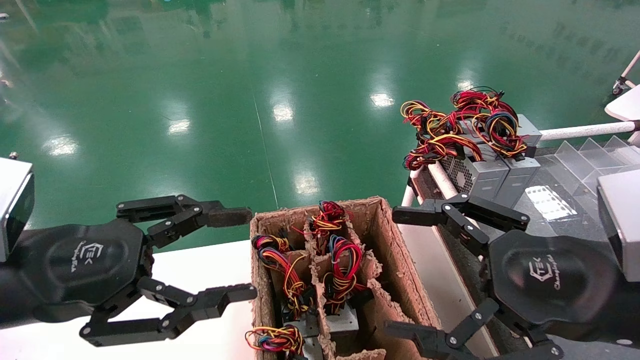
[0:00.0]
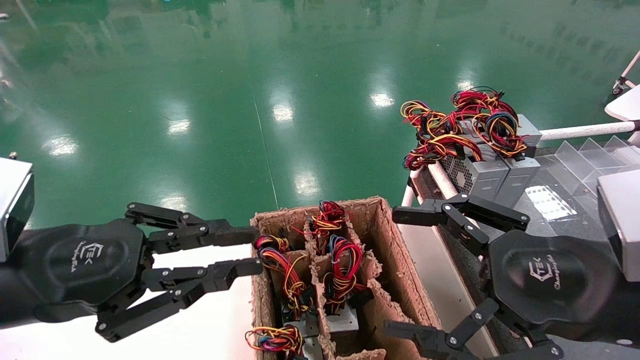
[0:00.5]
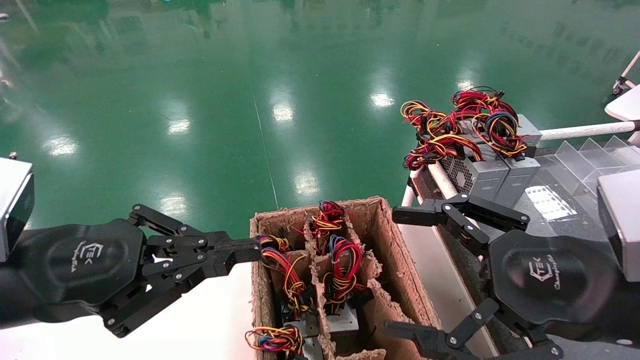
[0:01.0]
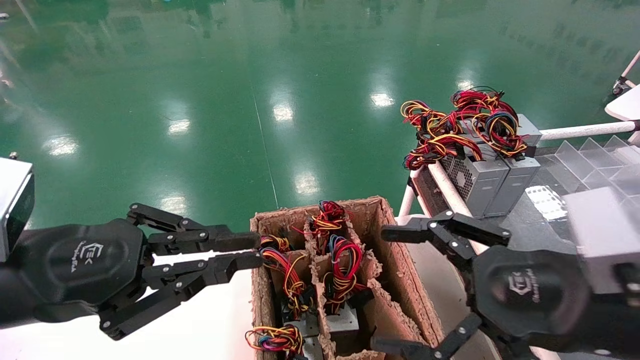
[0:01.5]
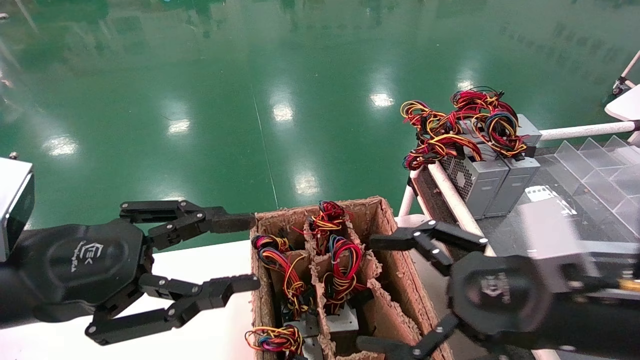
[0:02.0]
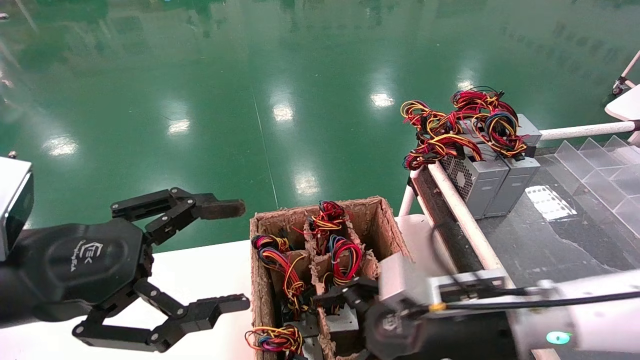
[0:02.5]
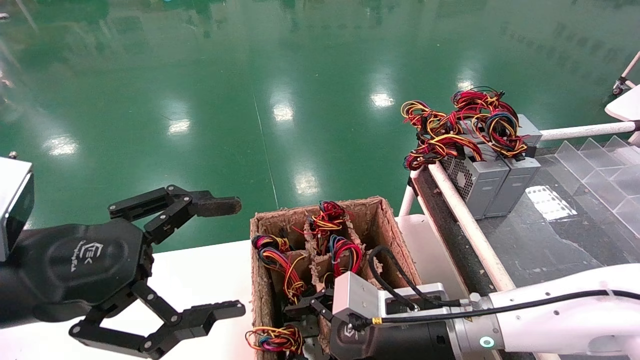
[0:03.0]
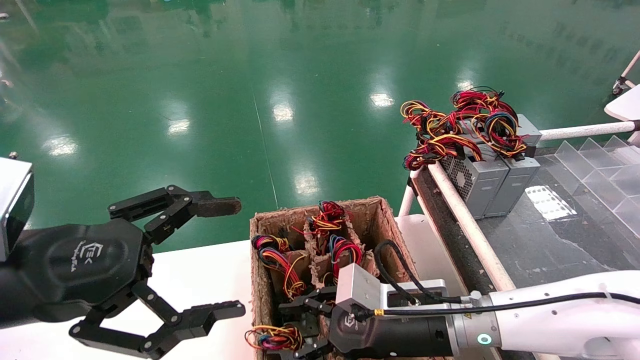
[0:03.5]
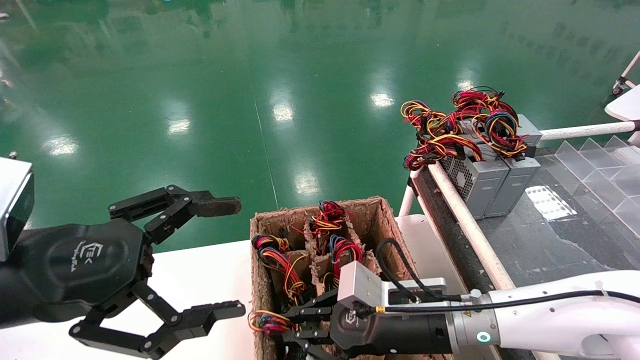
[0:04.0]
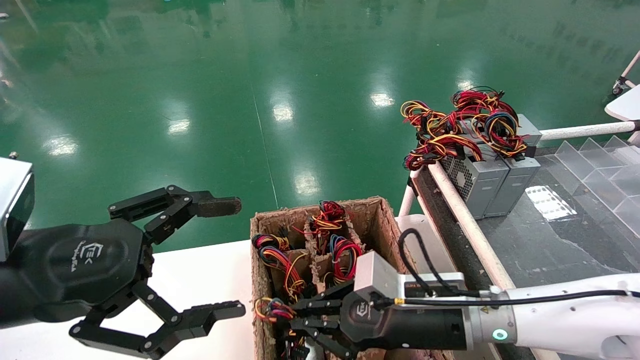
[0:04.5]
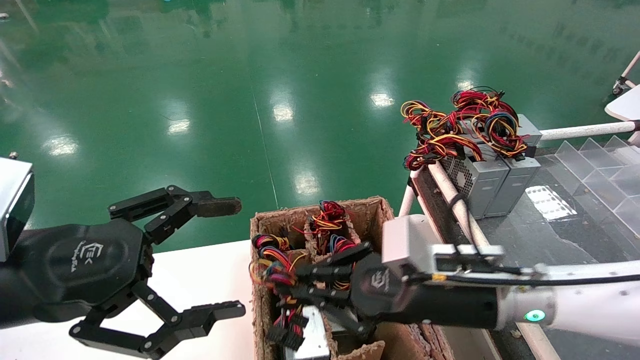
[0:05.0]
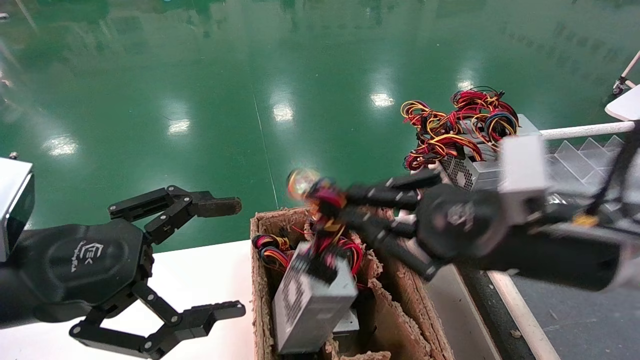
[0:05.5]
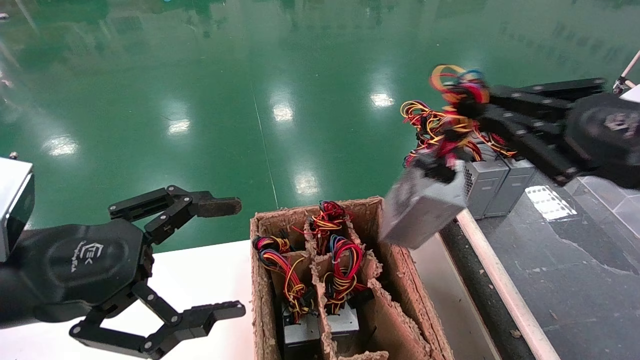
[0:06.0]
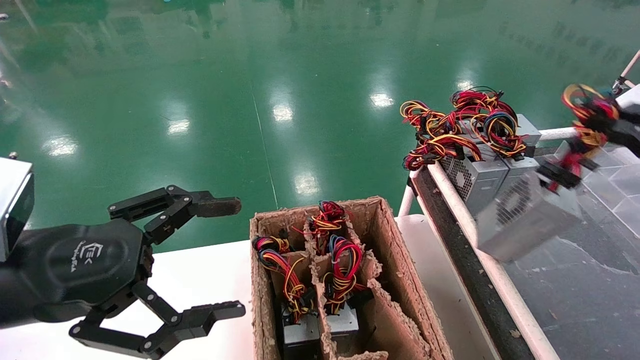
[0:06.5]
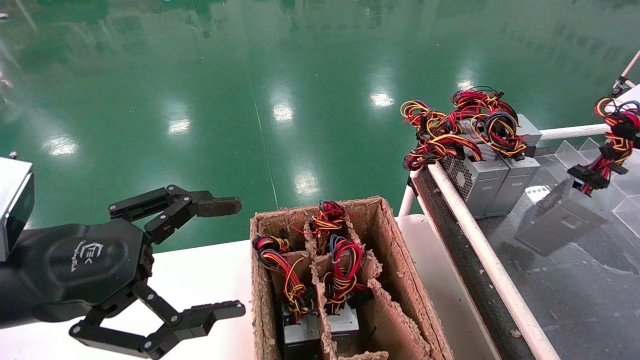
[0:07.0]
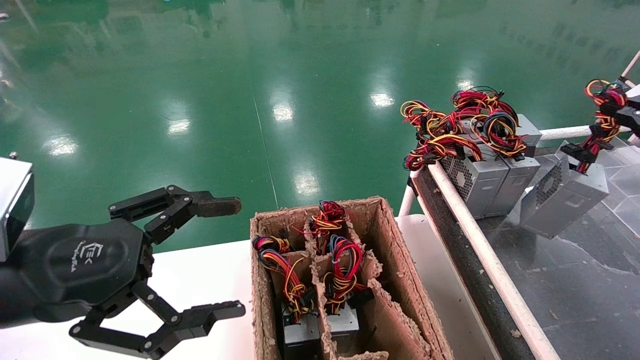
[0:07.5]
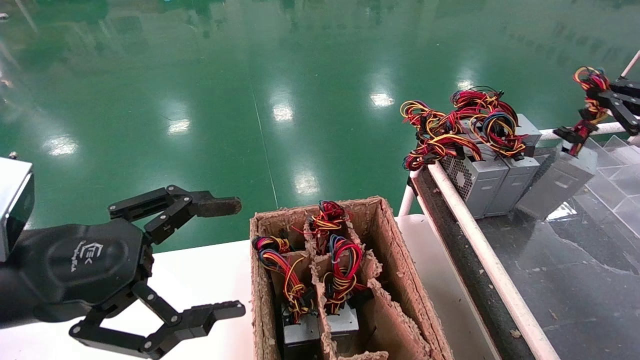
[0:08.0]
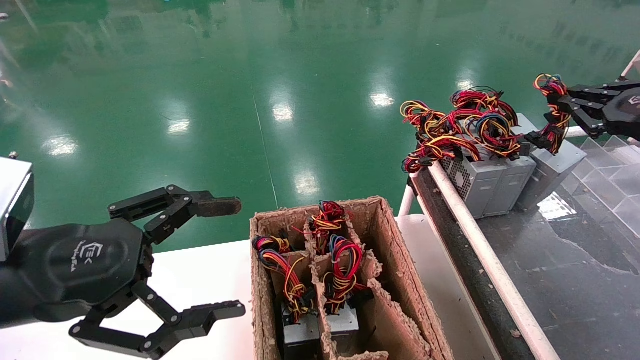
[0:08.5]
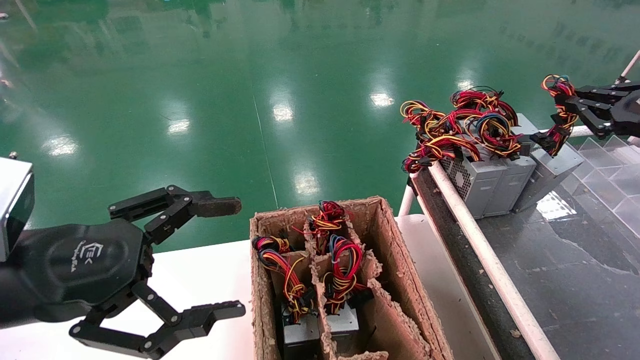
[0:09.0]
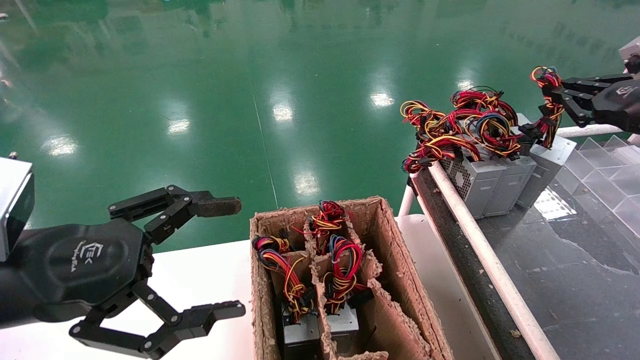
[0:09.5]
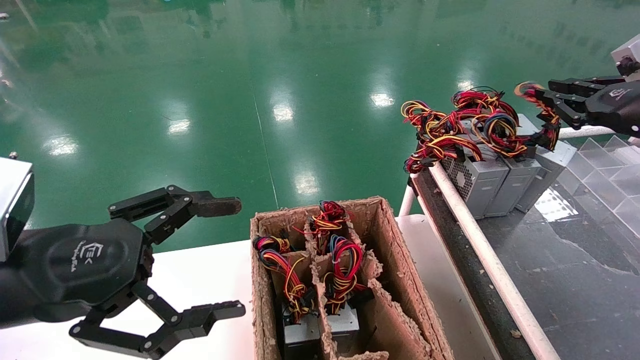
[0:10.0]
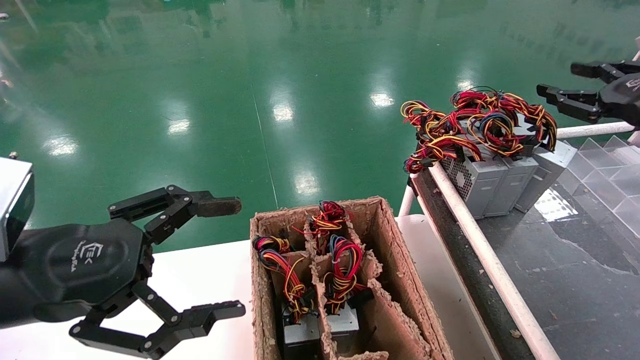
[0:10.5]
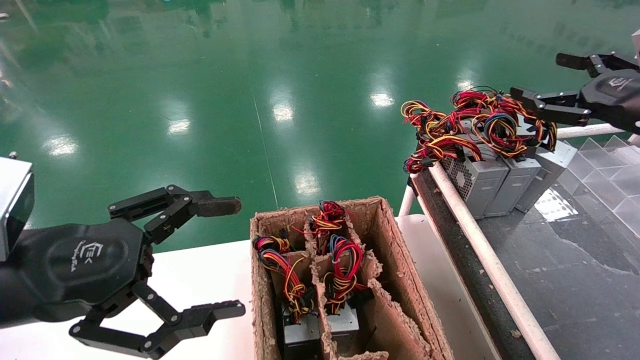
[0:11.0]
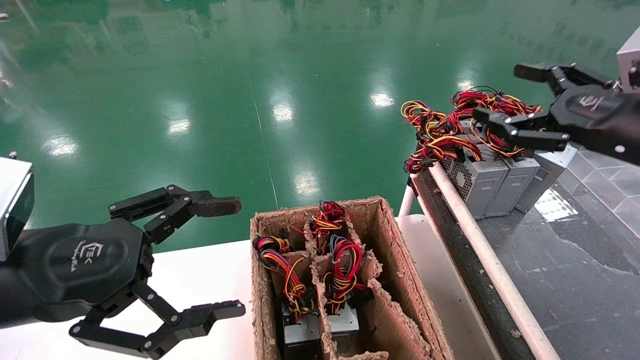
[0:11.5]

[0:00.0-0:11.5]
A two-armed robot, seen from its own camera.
Step, 0:01.5 to 0:04.0: Grab and lift the power supply from the large box.
Step, 0:04.5 to 0:10.0: Place the power supply on the operating table.
0:00.0 to 0:02.0: The right gripper shifts by about 5 cm.
0:02.0 to 0:04.0: The right gripper is displaced downward, to the left and forward by roughly 15 cm, and closes its fingers. Meanwhile the left gripper opens its fingers.
0:04.0 to 0:06.0: The right gripper goes some 30 cm upward and to the right.
0:06.0 to 0:07.5: The right gripper travels to the right by about 15 cm.
0:07.5 to 0:09.5: The right gripper is displaced forward and to the left by roughly 10 cm.
0:09.5 to 0:11.5: The right gripper travels to the left and backward by some 10 cm, and opens.

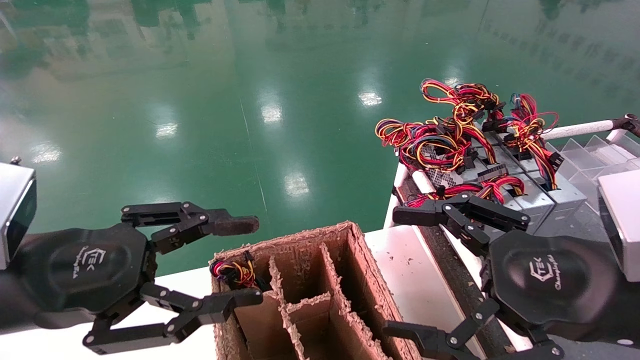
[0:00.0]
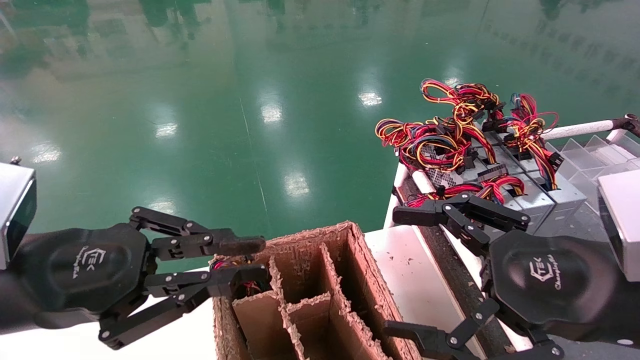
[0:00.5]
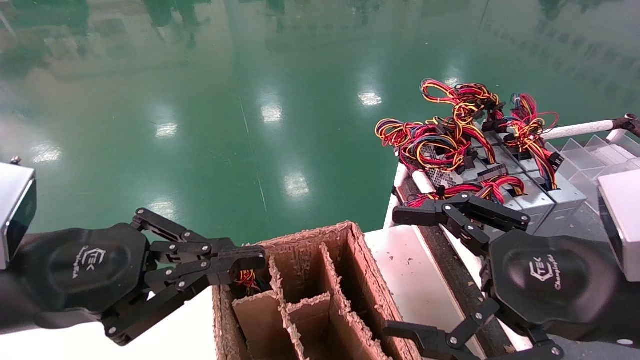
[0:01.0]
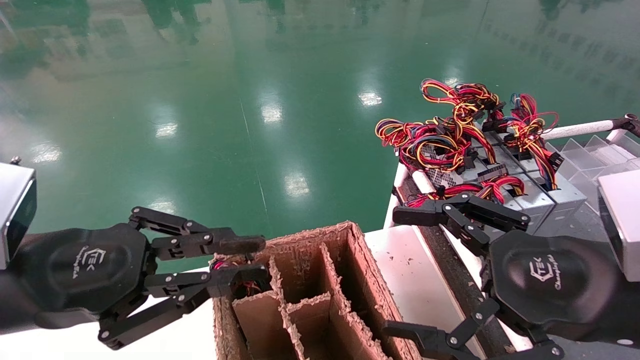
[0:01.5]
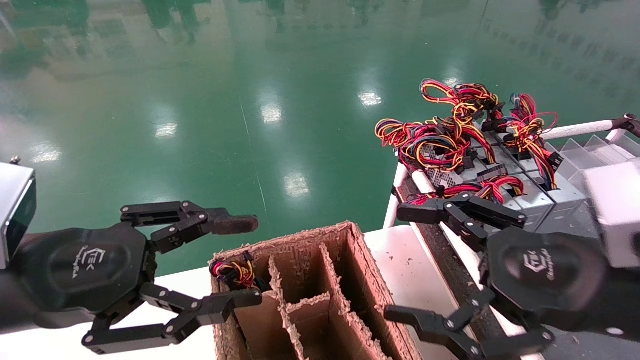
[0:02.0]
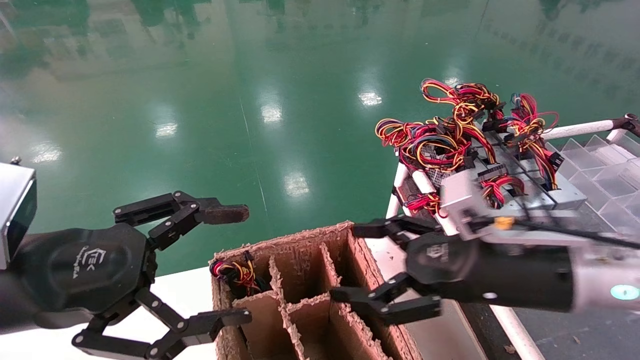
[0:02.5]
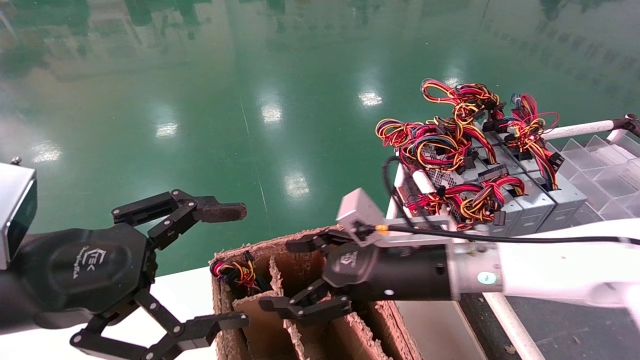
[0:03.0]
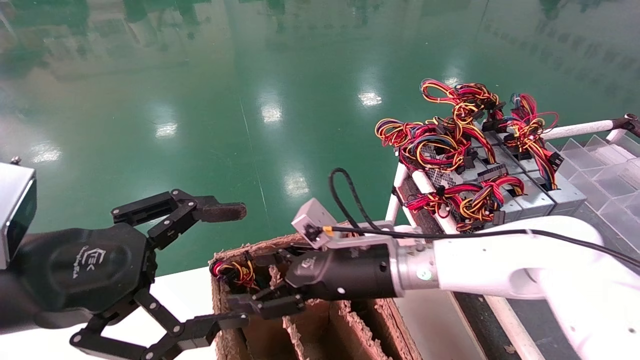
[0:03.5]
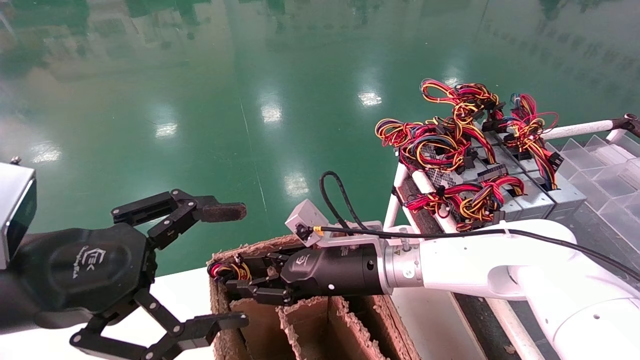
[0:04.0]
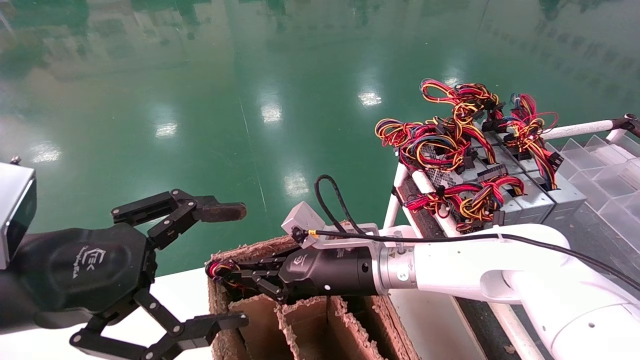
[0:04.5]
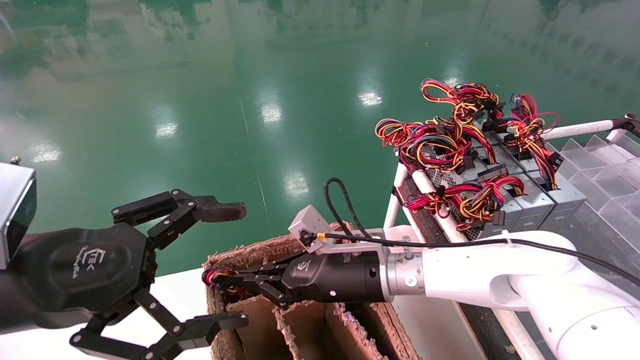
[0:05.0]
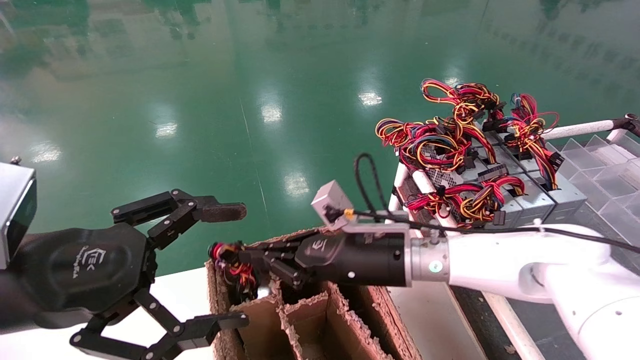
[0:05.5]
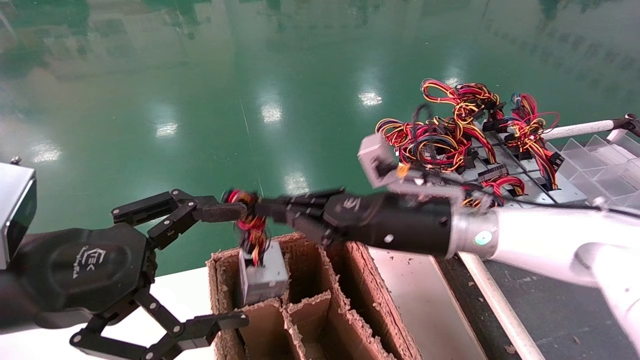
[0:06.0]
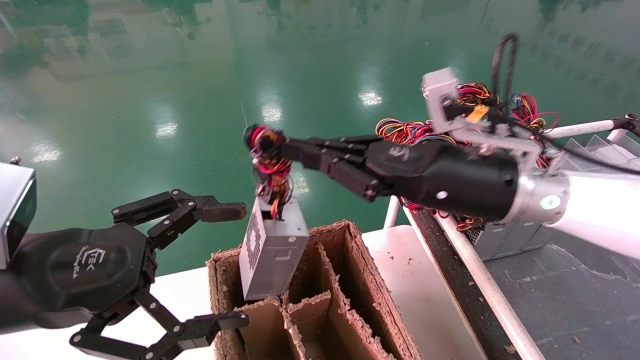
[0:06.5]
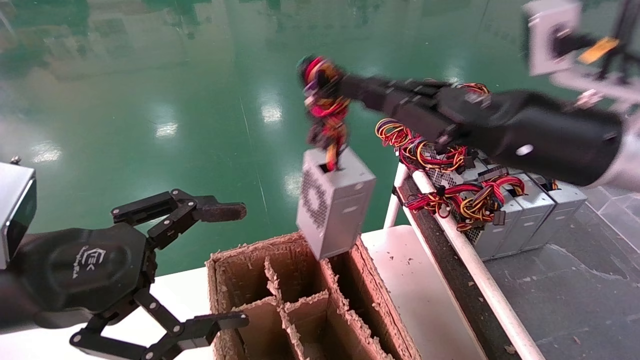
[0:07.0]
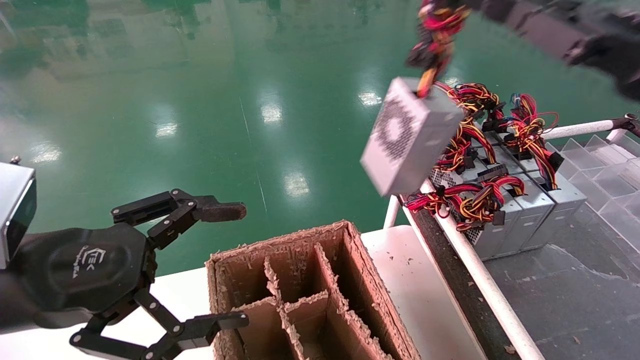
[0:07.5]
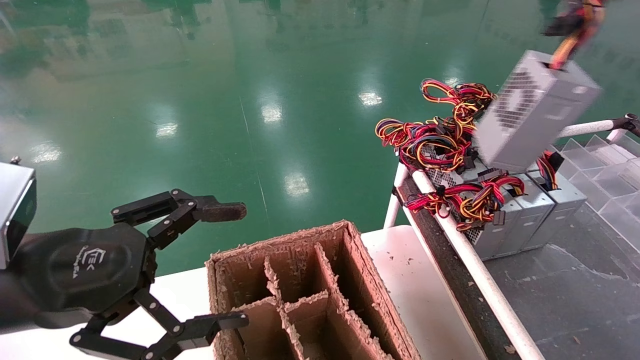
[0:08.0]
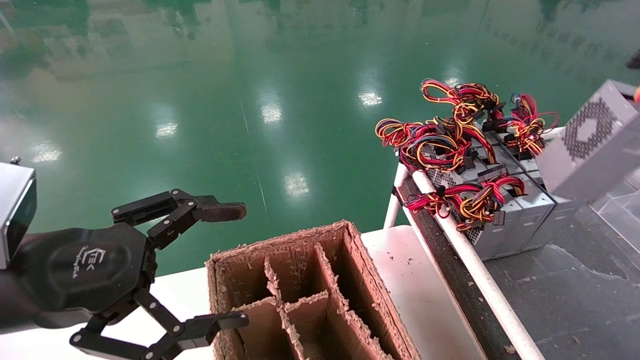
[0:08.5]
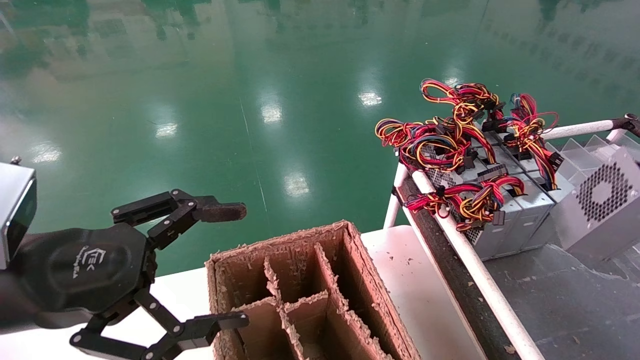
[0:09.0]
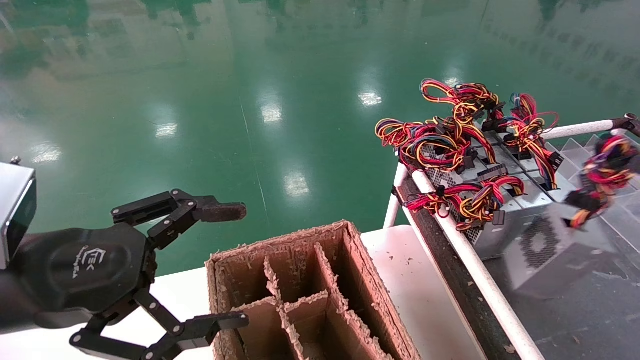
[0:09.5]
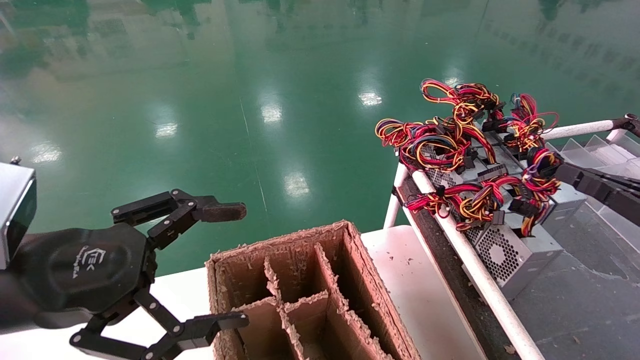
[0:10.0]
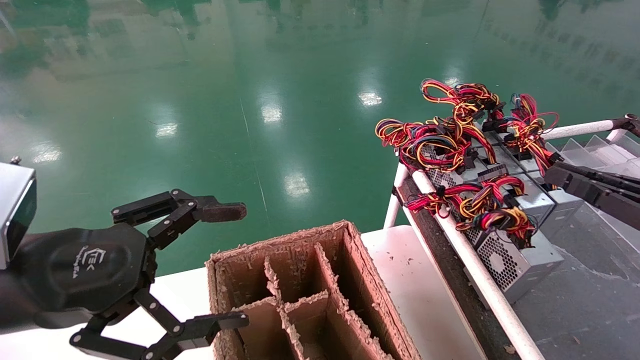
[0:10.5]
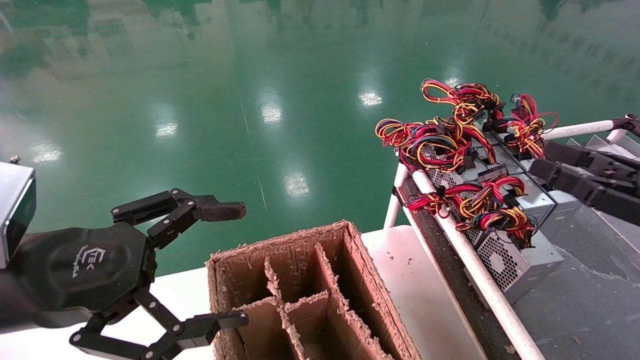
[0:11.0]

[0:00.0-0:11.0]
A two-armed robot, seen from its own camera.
Step, 0:01.0 to 0:04.5: Grab and lift the power supply from the large box.
Step, 0:05.0 to 0:10.5: Place the power supply on the operating table.
0:00.0 to 0:02.0: The left gripper closes, then reopens.
0:02.0 to 0:03.5: The right gripper heads to the left, forward and downward, covering about 25 cm. The left gripper opens.
0:03.5 to 0:05.5: The right gripper closes up.
0:05.5 to 0:07.5: The right gripper goes approximately 35 cm to the right and upward.
0:07.5 to 0:09.0: The right gripper is displaced to the right, backward and downward by about 25 cm.
0:09.0 to 0:11.0: The right gripper travels to the left, forward and downward by approximately 15 cm, and opens its fingers.
